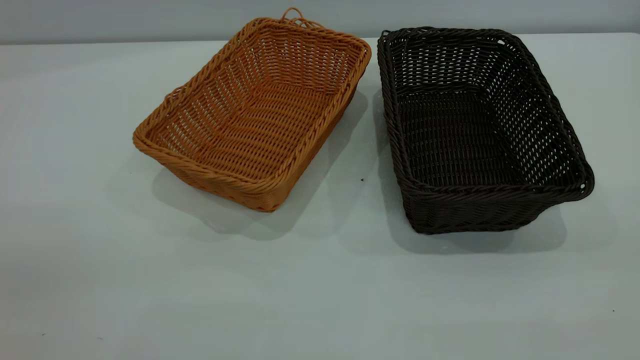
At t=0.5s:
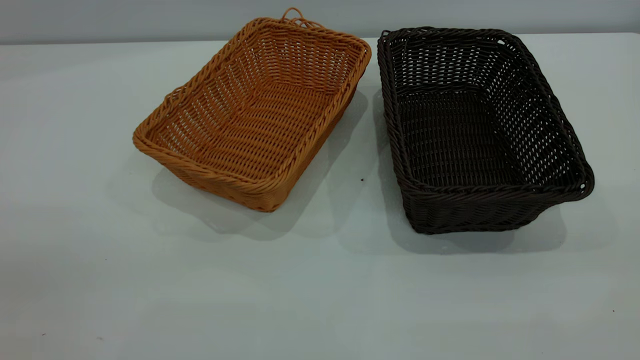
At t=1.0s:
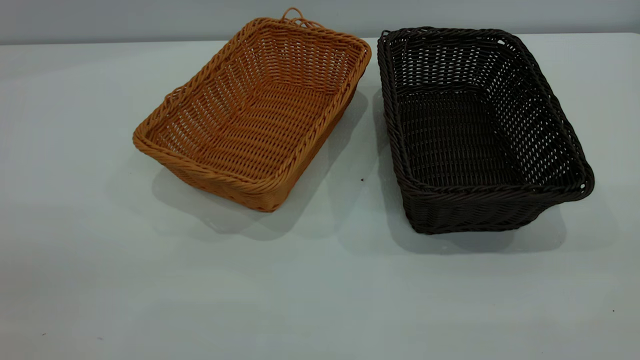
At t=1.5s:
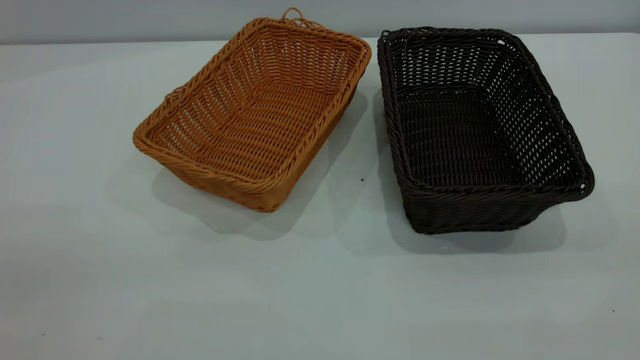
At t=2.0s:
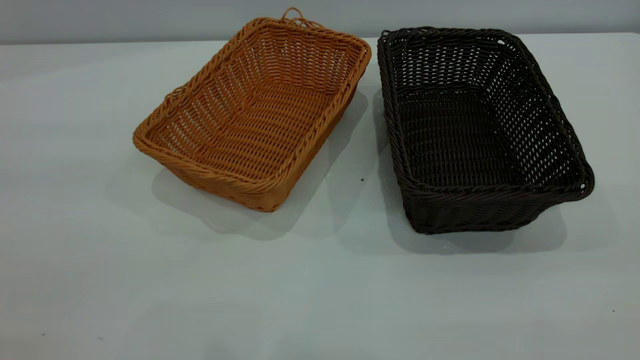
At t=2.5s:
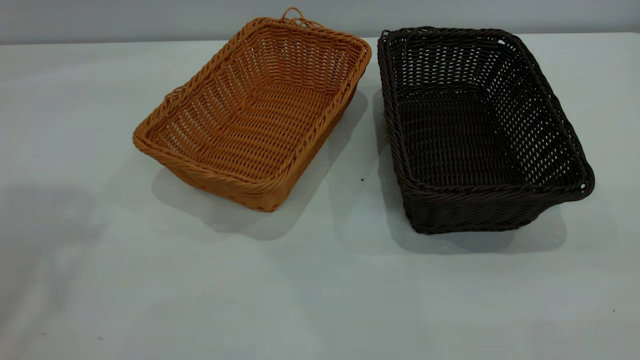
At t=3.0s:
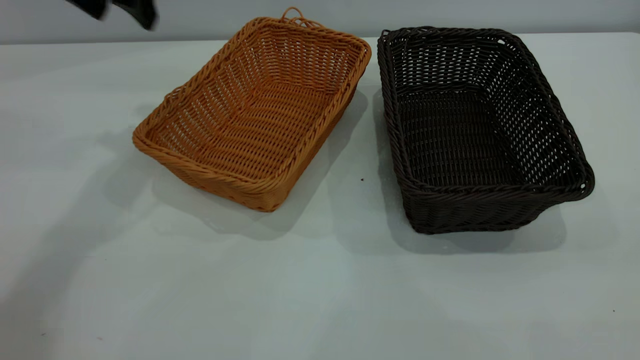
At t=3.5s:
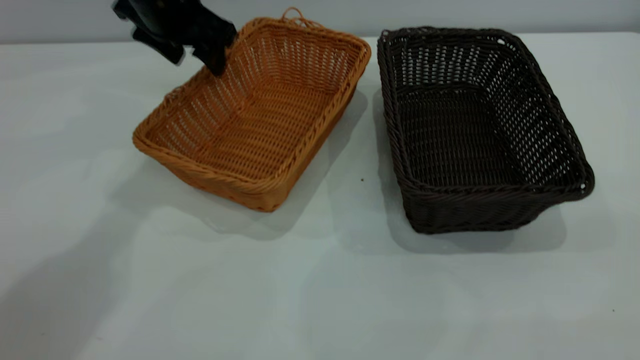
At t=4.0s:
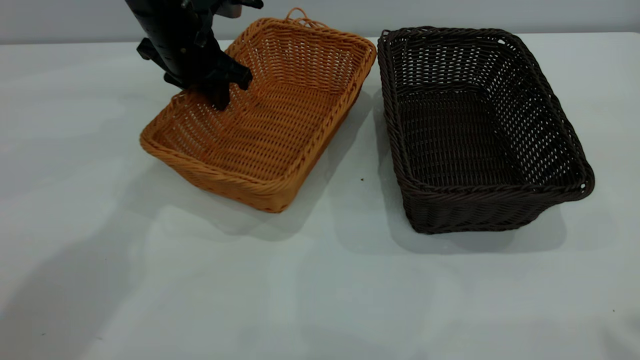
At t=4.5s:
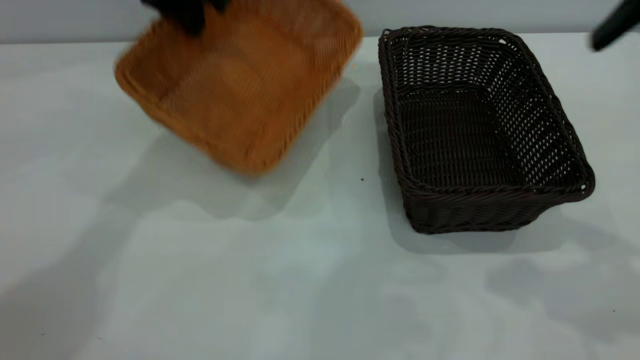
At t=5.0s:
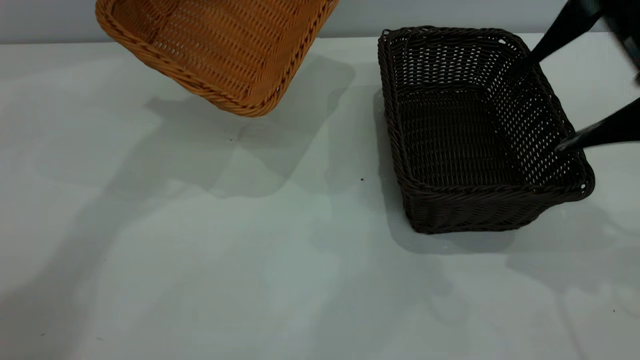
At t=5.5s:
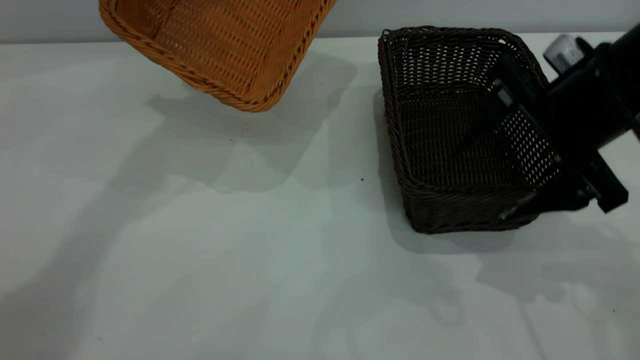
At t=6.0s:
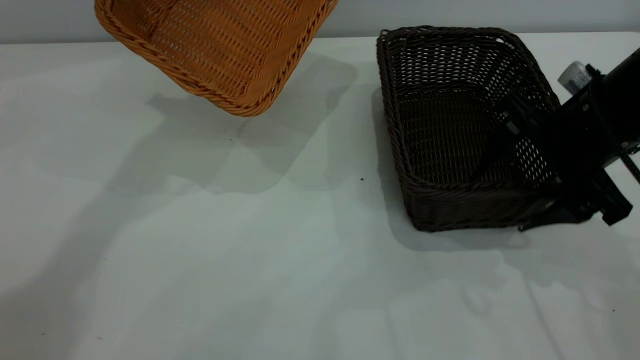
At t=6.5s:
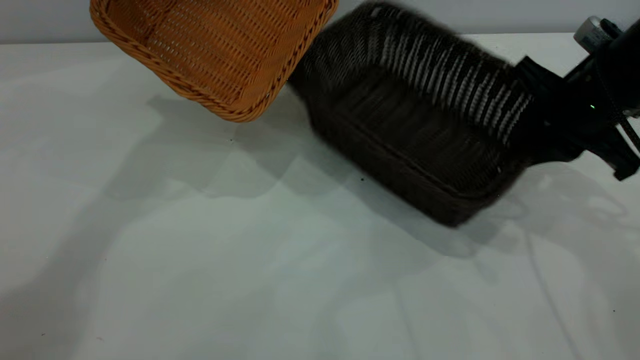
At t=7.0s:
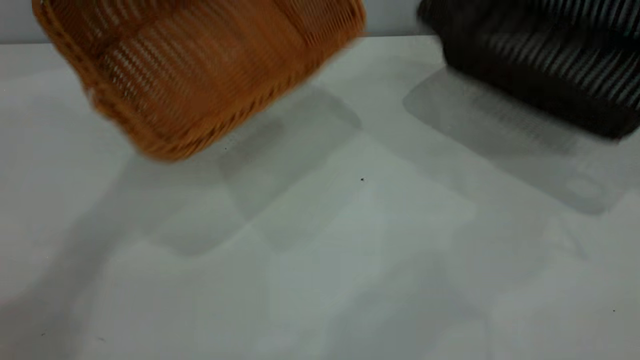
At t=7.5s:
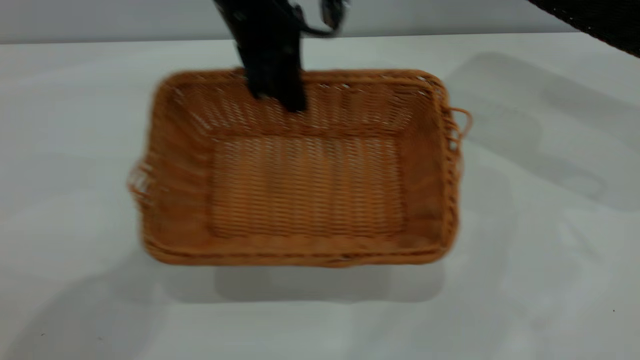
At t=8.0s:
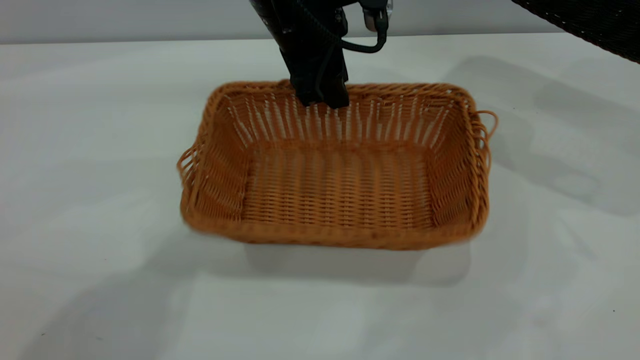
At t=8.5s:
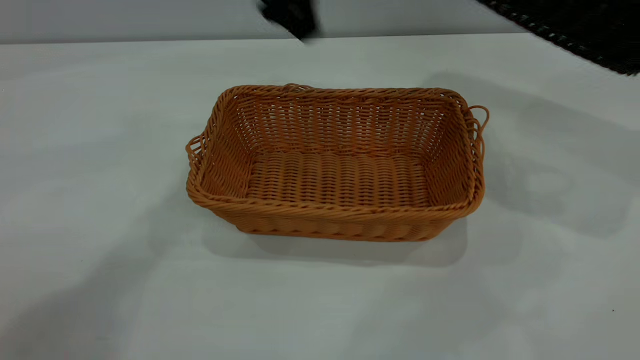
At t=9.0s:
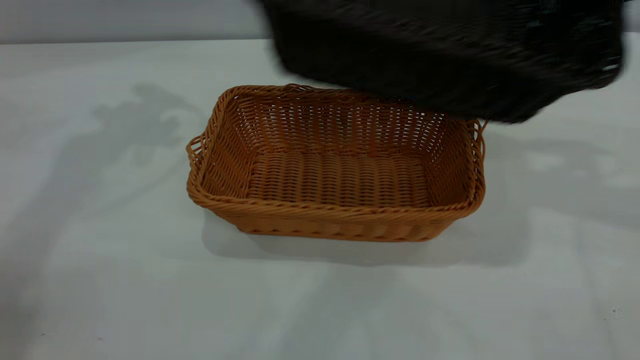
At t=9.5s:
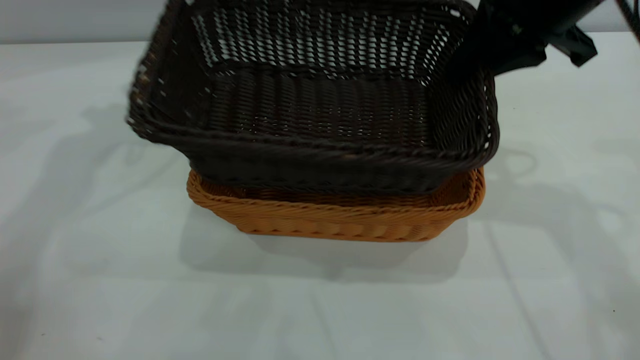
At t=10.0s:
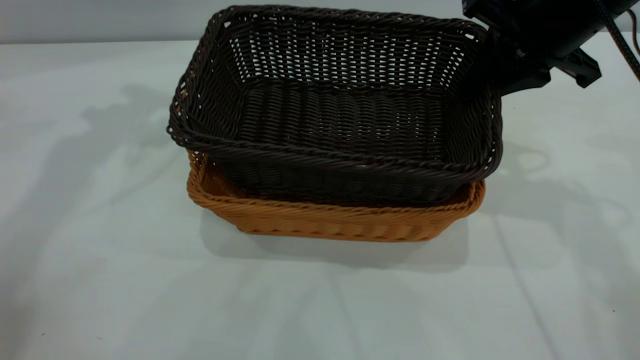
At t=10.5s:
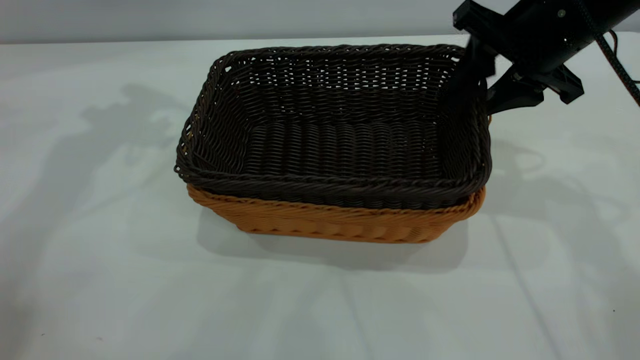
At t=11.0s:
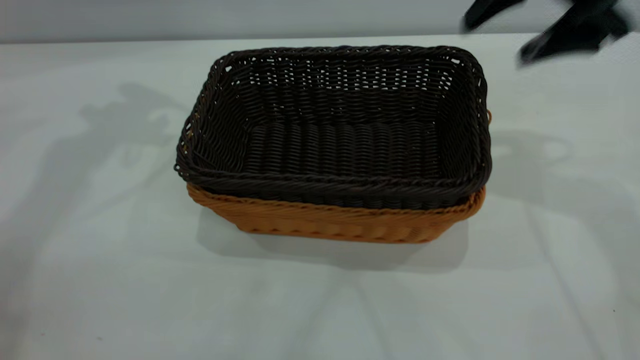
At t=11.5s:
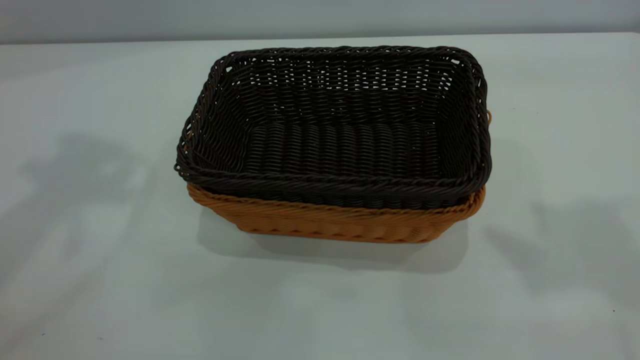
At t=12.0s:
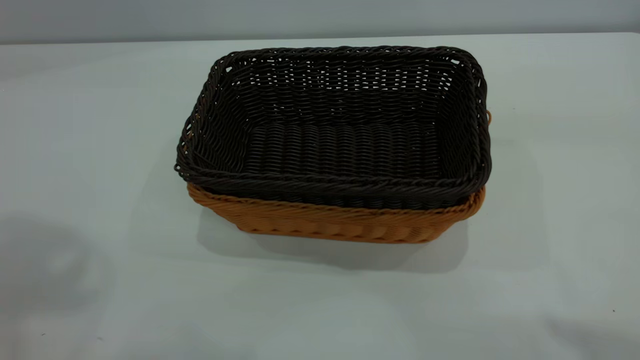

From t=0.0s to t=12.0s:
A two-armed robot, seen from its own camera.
Task of the whole recording: the left gripper grasp the brown basket and place it in the center of the table, the right gripper grasp the black basket and place it inside the brown one.
Step, from t=0.0s to t=6.5s: Pick up the light basket with the right gripper.
Step, from t=7.0s to t=8.0s: Place the light-colored basket in the center.
Step, from t=8.5s to t=10.5s: Place the dark basket on top of the light basket.
From t=2.0s to t=4.0s: The right gripper travels forward by some 15 cm, while the left gripper shifts about 50 cm forward, downward and to the right, and closes.
From t=4.0s to t=6.0s: The left gripper moves upward, some 15 cm. The right gripper shifts some 30 cm downward and forward.
From t=6.0s to t=8.0s: The right gripper shifts about 25 cm to the right and upward, and closes, while the left gripper goes approximately 20 cm to the right, downward and backward, and opens.
From t=8.0s to t=10.0s: The left gripper is displaced to the left and upward by roughly 25 cm, and opens its fingers. The right gripper moves to the left, about 25 cm.
From t=10.0s to t=12.0s: The right gripper heads upward and backward, covering some 35 cm, and opens, while the left gripper travels backward and upward by roughly 30 cm.

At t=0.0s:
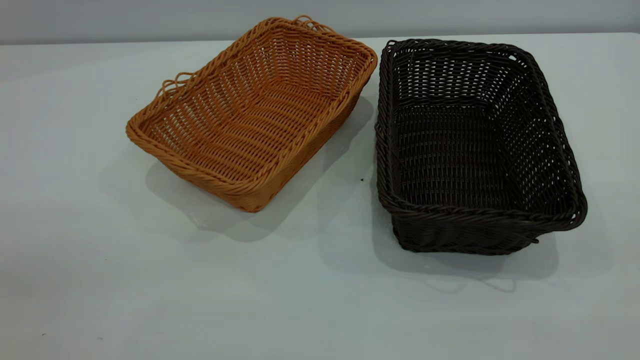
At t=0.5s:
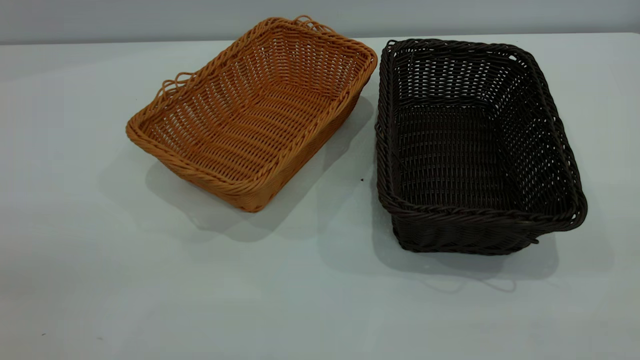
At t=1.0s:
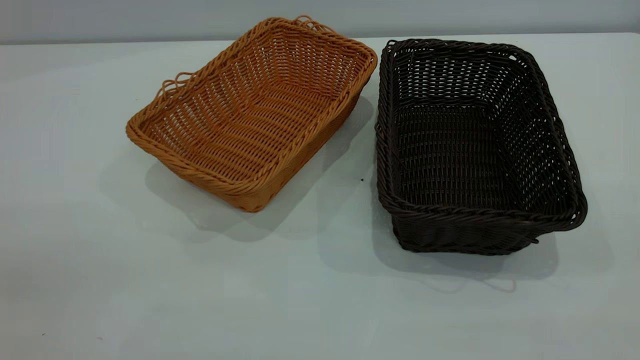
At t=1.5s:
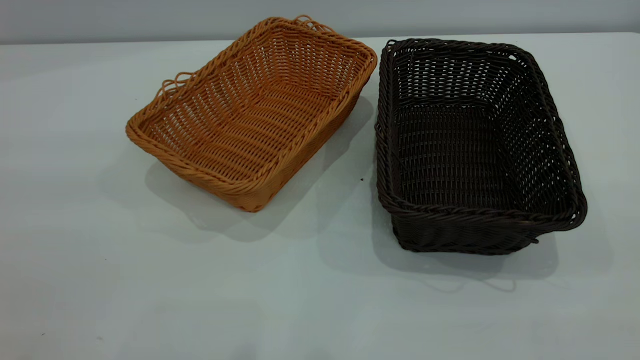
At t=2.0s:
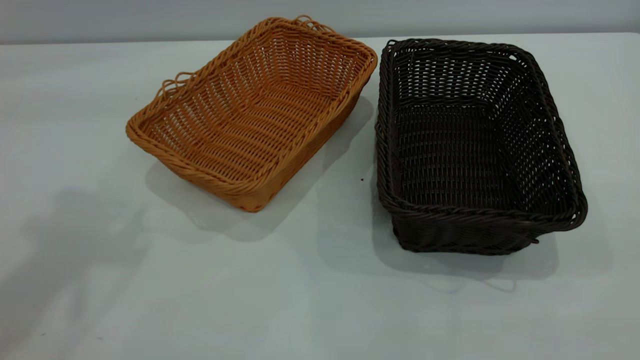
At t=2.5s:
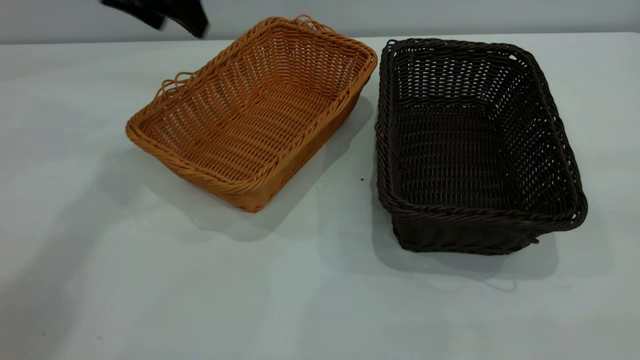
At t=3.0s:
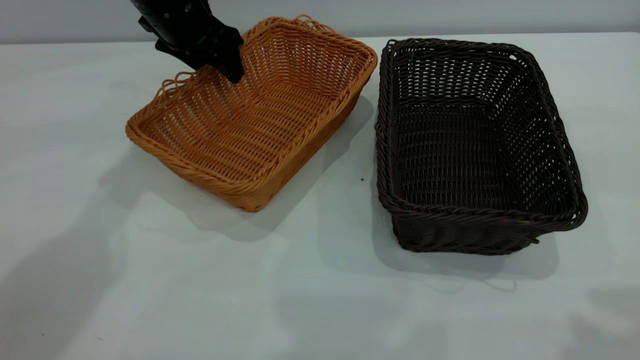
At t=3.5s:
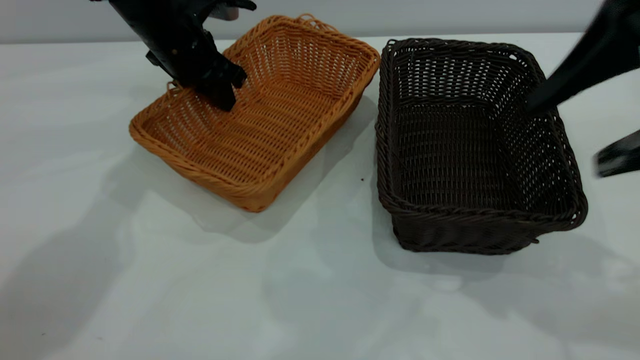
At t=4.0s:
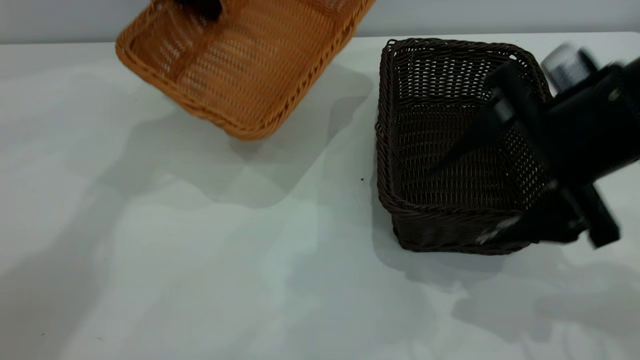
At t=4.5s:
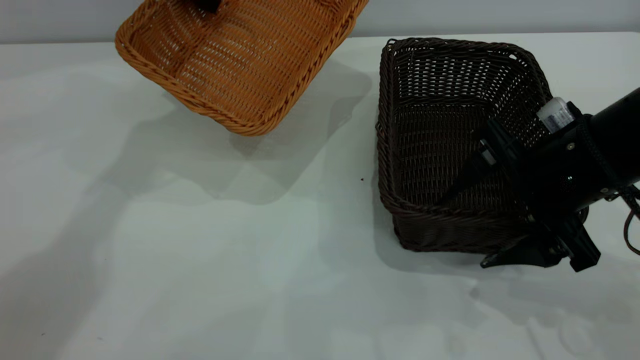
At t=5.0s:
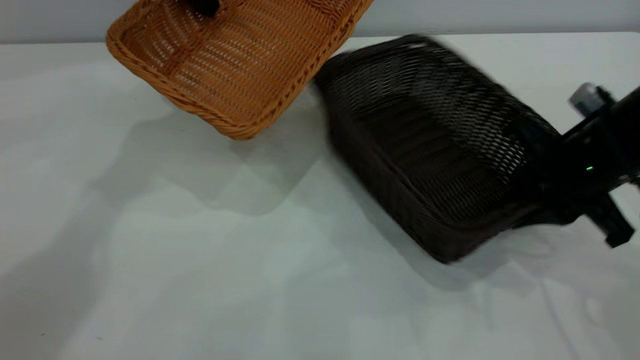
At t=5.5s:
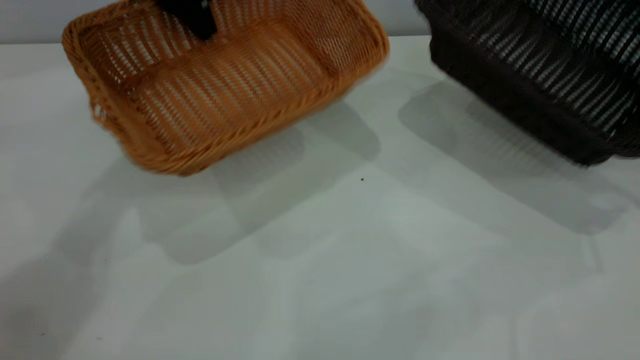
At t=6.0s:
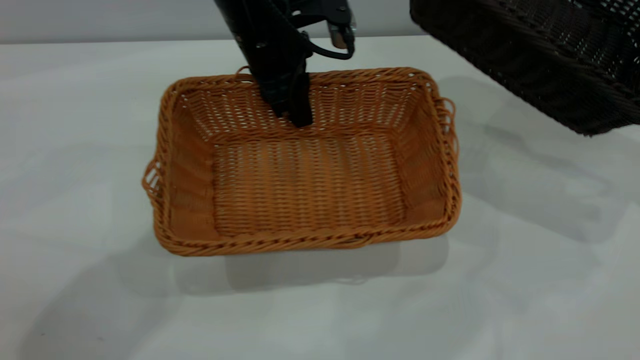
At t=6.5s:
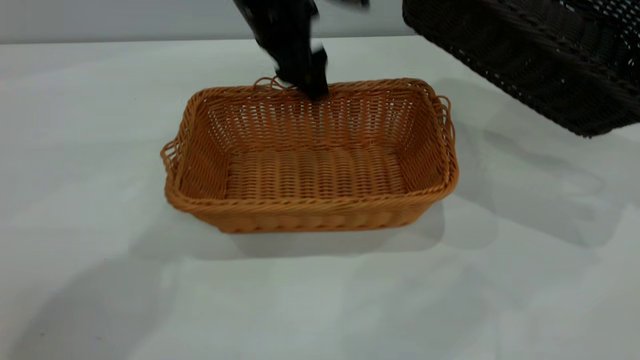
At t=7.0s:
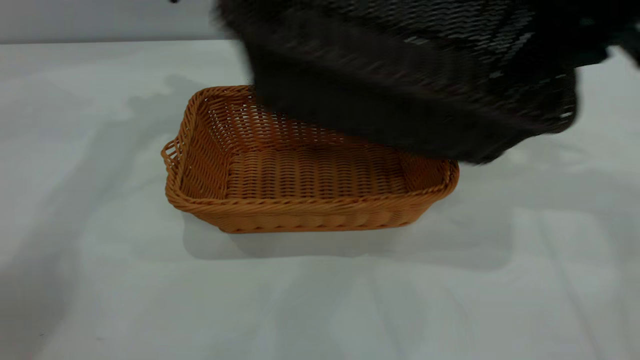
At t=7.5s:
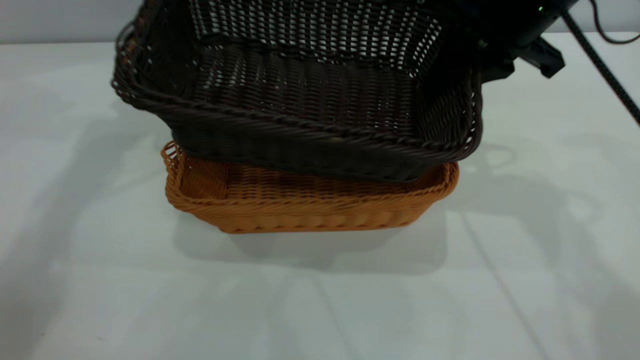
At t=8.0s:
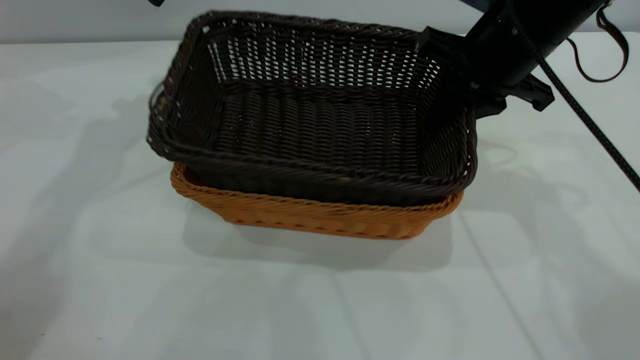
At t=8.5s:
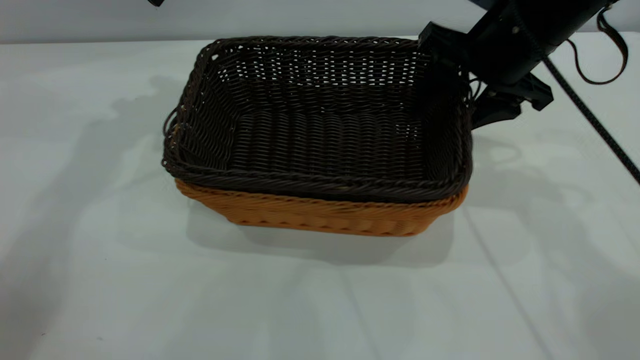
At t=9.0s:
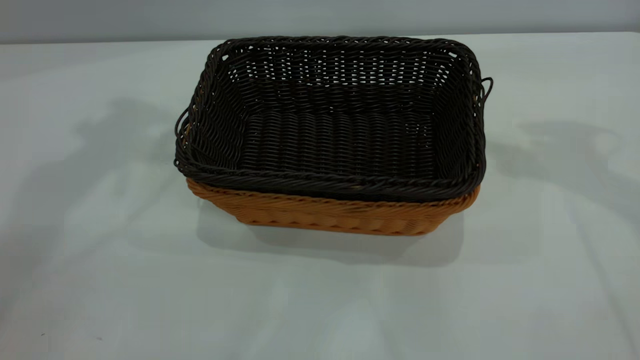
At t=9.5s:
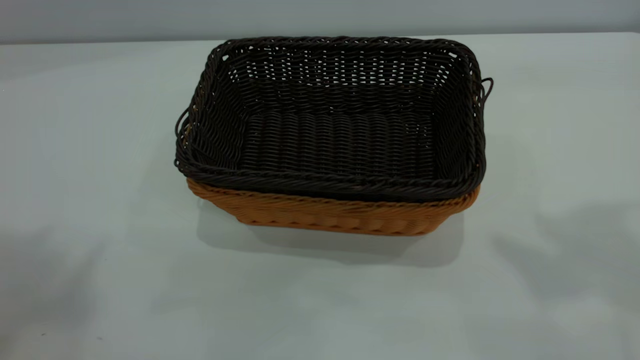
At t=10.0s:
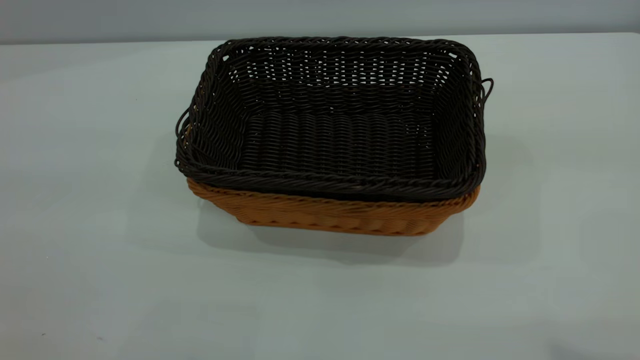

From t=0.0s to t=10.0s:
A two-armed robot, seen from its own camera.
Task of the whole recording: the left gripper grasp the brown basket and place it in the center of the table, the right gripper grasp the black basket and place it inside the brown one.
Step, from t=0.0s to t=4.0s: Pick up the light basket with the right gripper.
Step, from t=4.5s to t=6.5s: Place the light-colored basket in the center.
Step, from t=7.0s to t=8.5s: Place the dark basket on top of the light basket.
From t=2.0s to t=4.0s: The right gripper is displaced forward, downward and to the left by roughly 35 cm; the left gripper moves forward and downward, roughly 25 cm, and closes its fingers.
From t=4.0s to t=6.0s: The right gripper goes about 20 cm to the right and forward, and closes up; the left gripper travels to the right, backward and downward by some 15 cm.
From t=6.0s to t=8.0s: The right gripper is displaced to the left by about 20 cm; the left gripper moves to the left and upward, approximately 20 cm, and opens up.
From t=8.0s to t=10.0s: Both grippers travel together backward and upward, approximately 50 cm. The right gripper opens.
